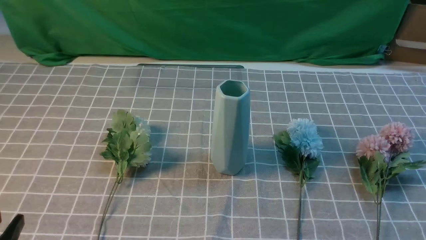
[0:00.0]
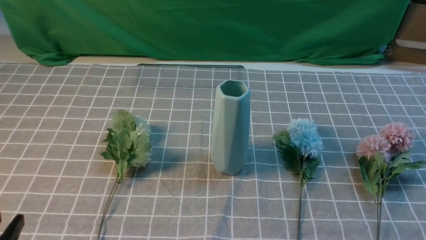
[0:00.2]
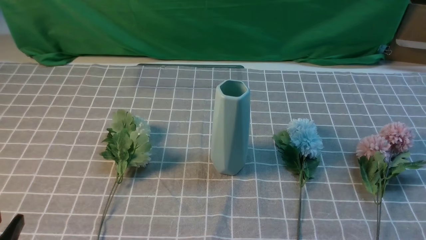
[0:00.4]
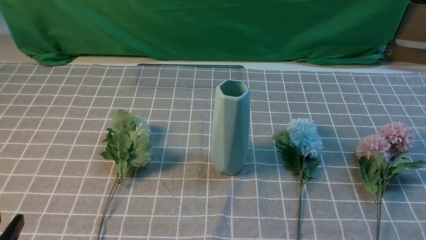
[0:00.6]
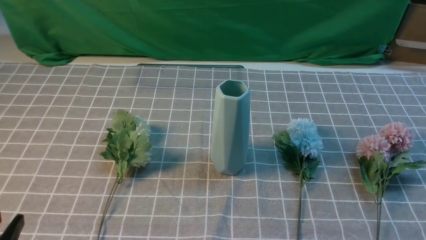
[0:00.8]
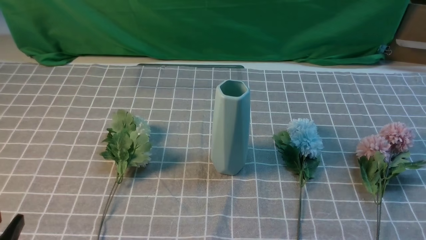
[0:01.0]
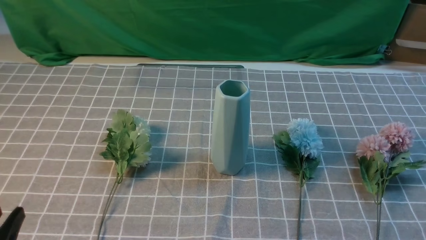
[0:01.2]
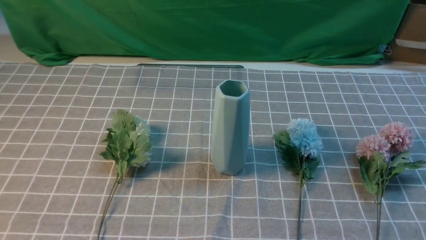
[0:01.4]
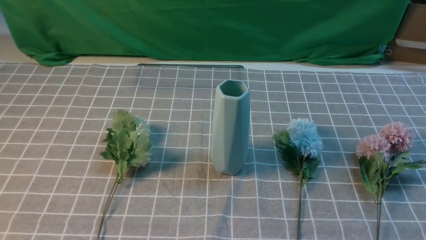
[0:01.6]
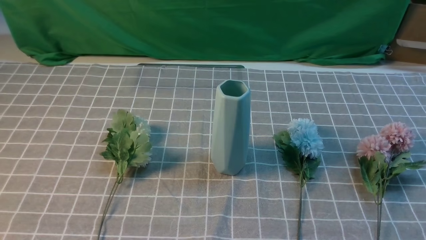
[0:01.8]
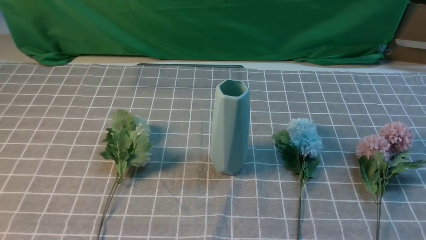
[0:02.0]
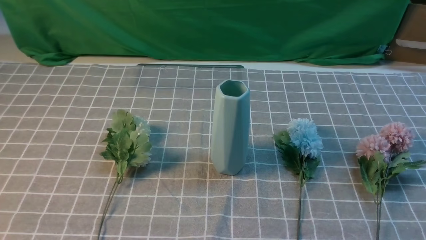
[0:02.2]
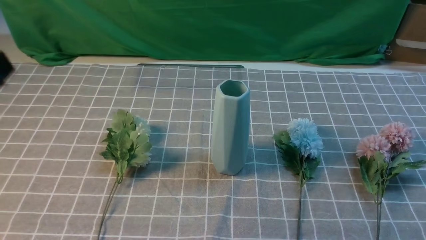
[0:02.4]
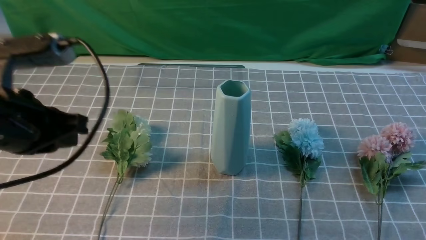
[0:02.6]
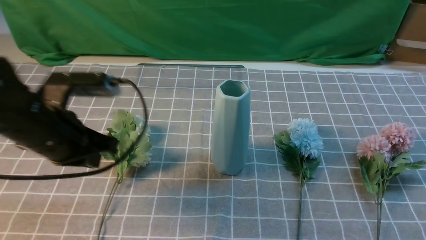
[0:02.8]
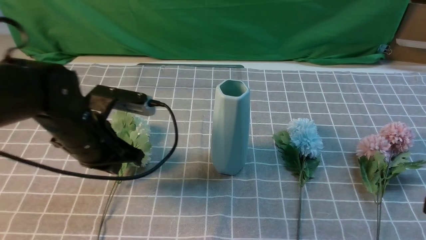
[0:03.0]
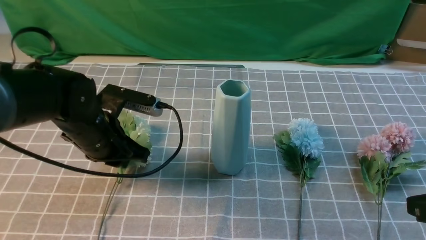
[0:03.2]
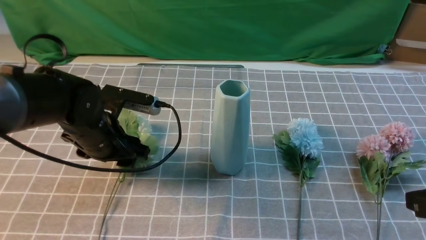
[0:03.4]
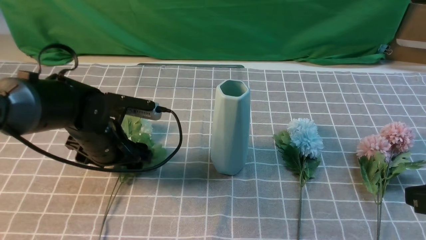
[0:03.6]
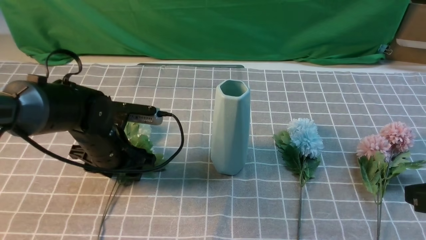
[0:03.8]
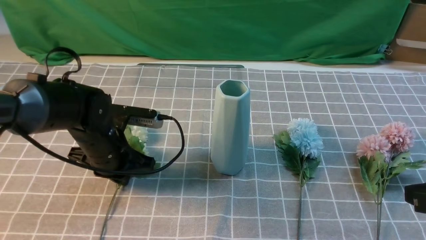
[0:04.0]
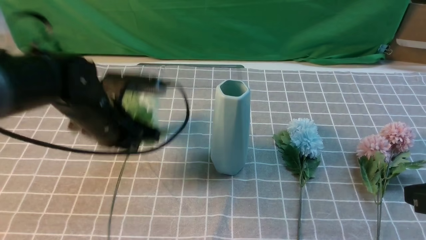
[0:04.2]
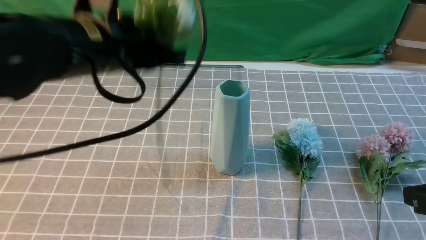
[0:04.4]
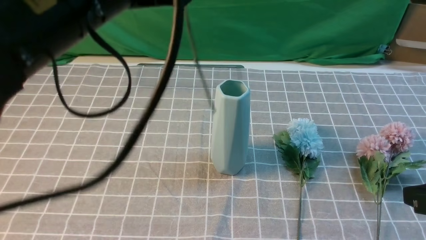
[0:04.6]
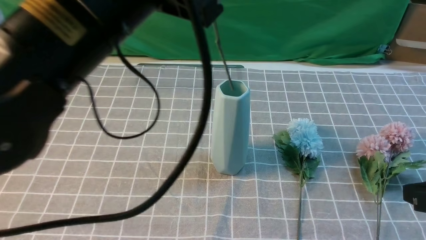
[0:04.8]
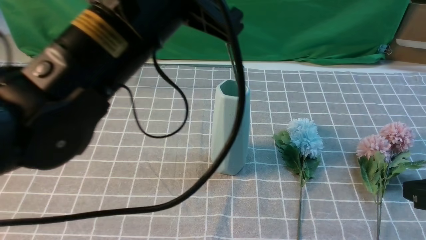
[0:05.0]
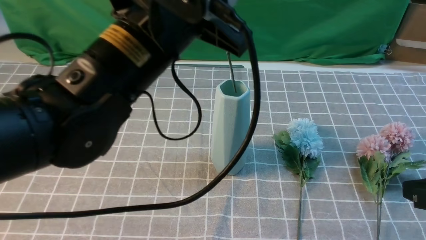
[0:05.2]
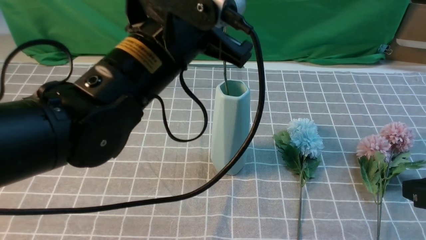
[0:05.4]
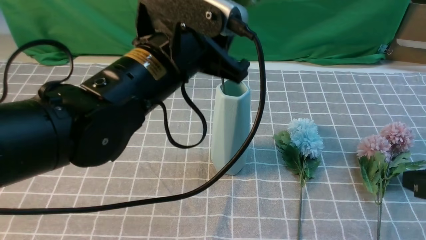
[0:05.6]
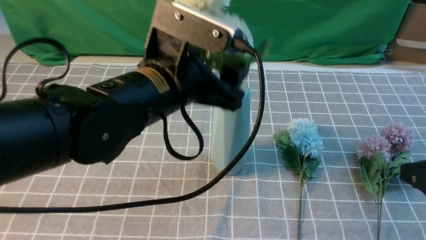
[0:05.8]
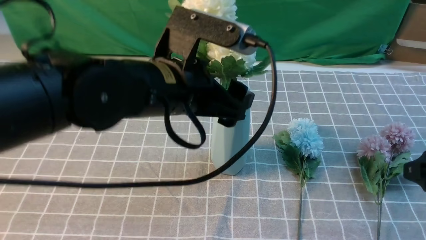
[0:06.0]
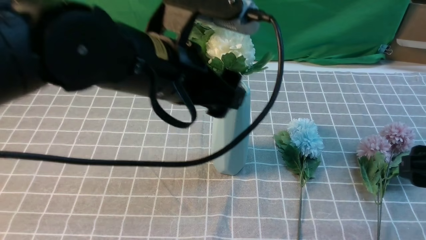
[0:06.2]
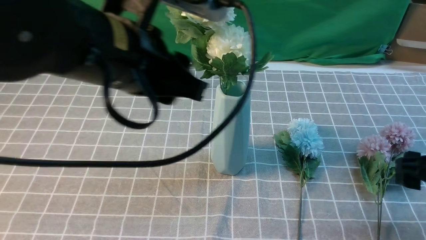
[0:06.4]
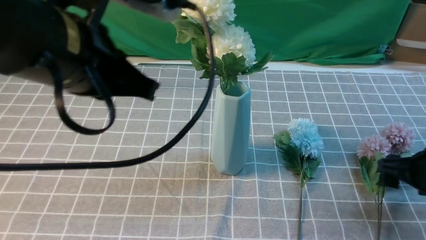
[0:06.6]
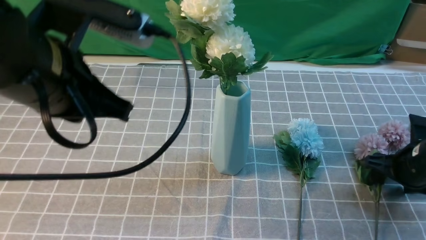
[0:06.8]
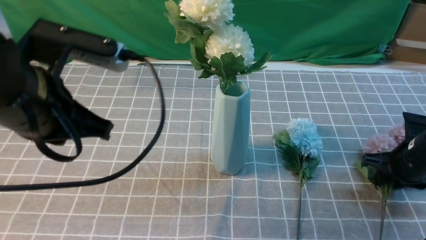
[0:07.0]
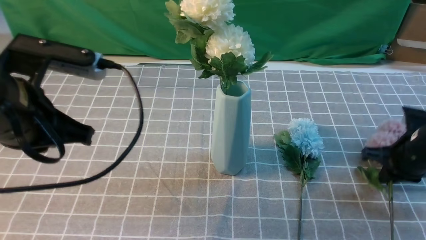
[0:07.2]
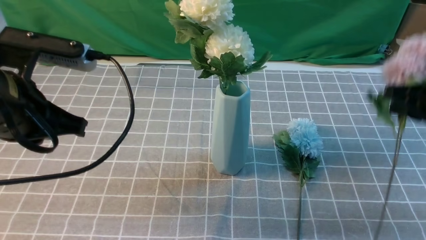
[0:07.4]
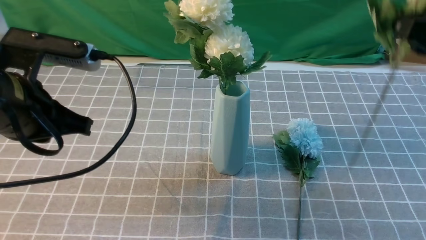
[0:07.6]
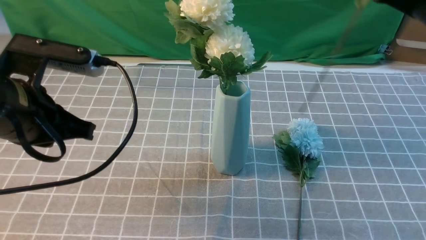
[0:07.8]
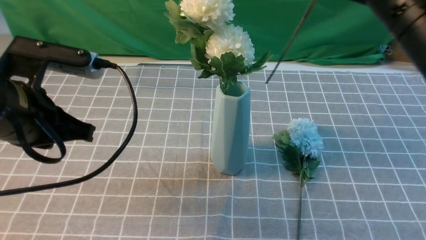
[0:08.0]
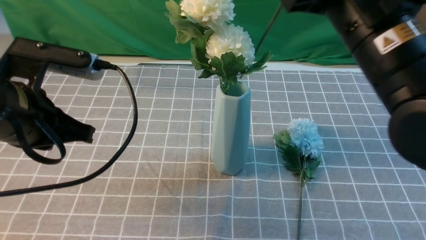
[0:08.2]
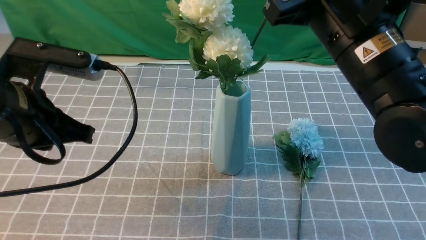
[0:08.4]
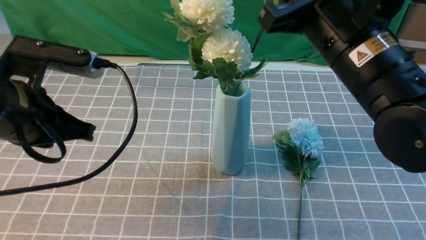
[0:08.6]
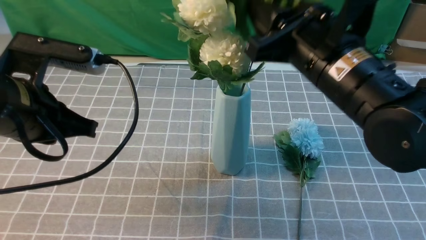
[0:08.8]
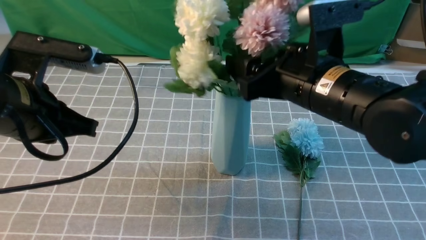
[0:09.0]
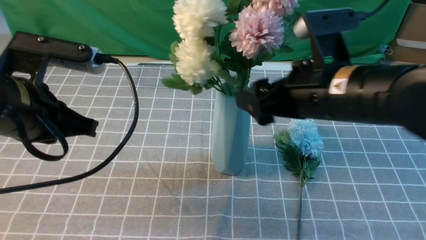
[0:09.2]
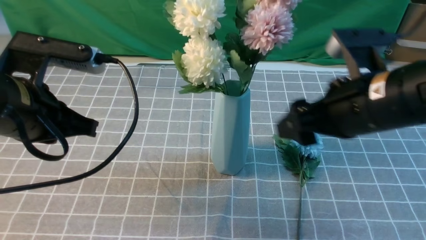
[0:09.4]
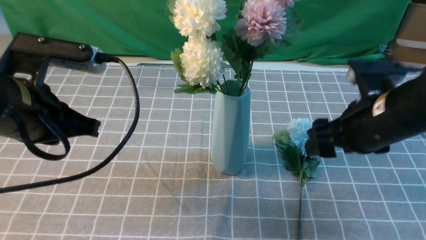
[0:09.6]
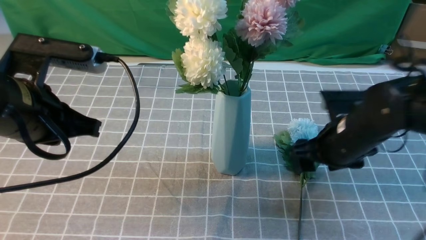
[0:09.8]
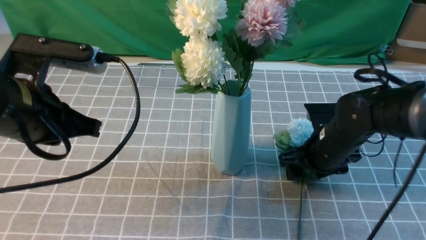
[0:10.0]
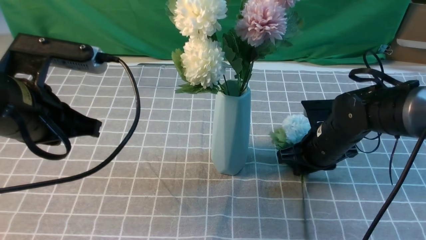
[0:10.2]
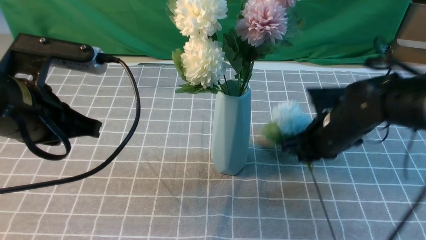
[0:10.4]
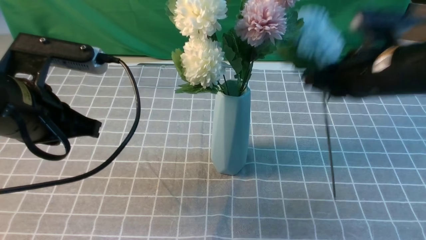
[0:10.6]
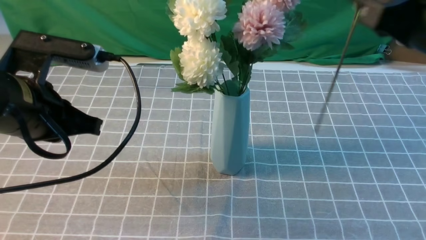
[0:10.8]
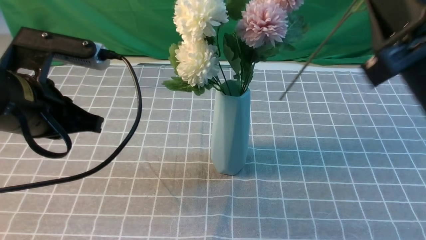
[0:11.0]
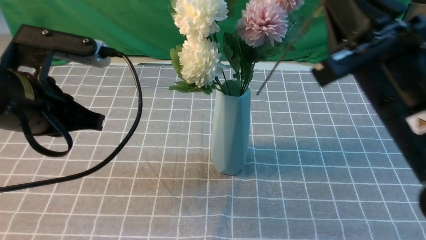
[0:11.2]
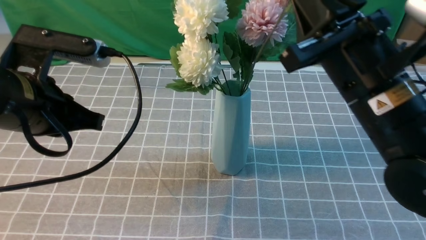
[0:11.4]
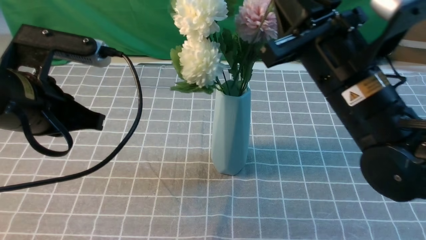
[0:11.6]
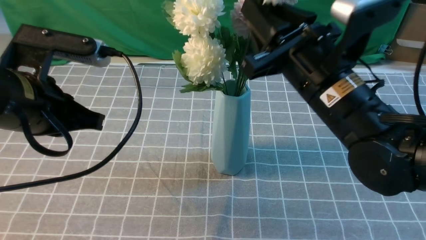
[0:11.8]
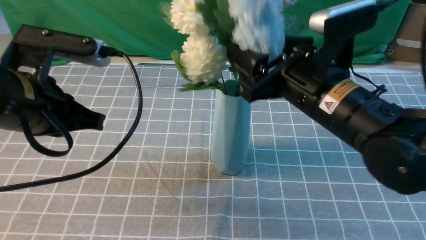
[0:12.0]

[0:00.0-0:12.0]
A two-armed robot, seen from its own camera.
Task of the whole recording: insert the flowers into the vase on the table with the grey tablecloth.
Step, 0.0 to 4.0 s: use the left arm to grab a bunch of fresh flowers.
Step, 4.2 to 6.0 s: use the left arm to insert the flowers into the vase.
Step, 6.2 to 7.2 s: use the right arm to grab a bunch of fresh flowers.
Step, 7.4 to 9.2 s: use the right arm to insert the flowers into the vase.
Step, 9.4 to 10.4 s: use the right arm to grab a bunch of fresh flowers.
1.6 to 3.0 s: The right gripper moves upward and forward, some 10 cm, and closes its fingers; the left gripper moves forward, about 25 cm.
3.0 to 4.4 s: The left gripper is displaced upward and to the right by roughly 15 cm, and opens, then closes once more.
4.4 to 6.0 s: The left gripper travels to the right by approximately 5 cm, moves some 5 cm upward and comes back, and opens up. Meanwhile the right gripper opens its fingers.
6.0 to 7.6 s: The right gripper shifts about 15 cm upward, forward and to the left, and closes its fingers. The left gripper goes approximately 15 cm to the left, and closes its fingers.
7.6 to 9.0 s: The right gripper heads to the left and downward, covering about 15 cm, and opens its fingers.
9.0 to 10.4 s: The right gripper goes roughly 10 cm downward, to the right and forward, and closes up.
10.4 to 12.0 s: The right gripper heads upward, backward and to the left, covering approximately 10 cm, and opens up.

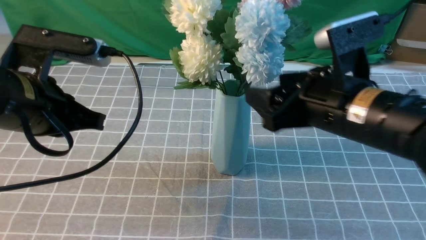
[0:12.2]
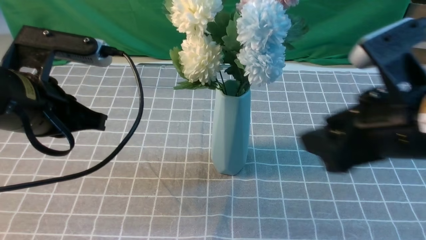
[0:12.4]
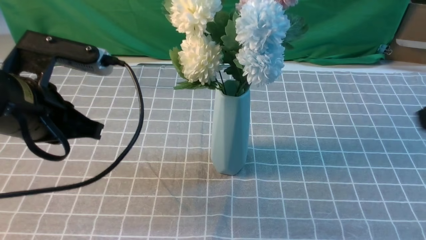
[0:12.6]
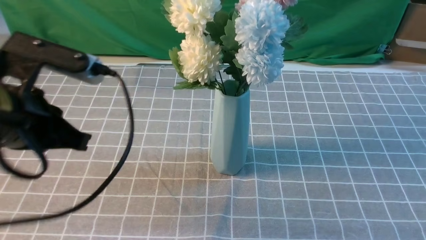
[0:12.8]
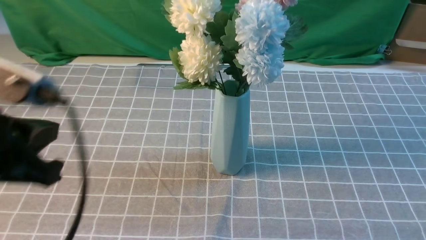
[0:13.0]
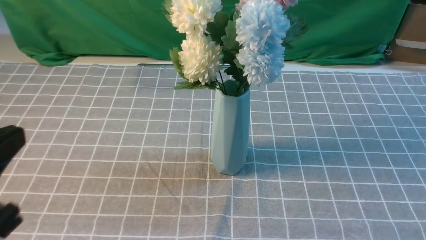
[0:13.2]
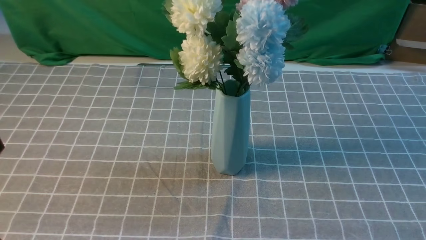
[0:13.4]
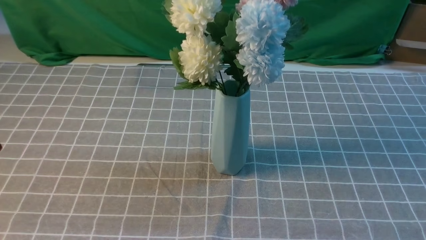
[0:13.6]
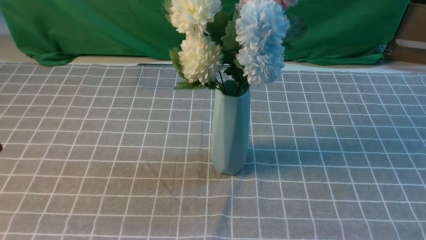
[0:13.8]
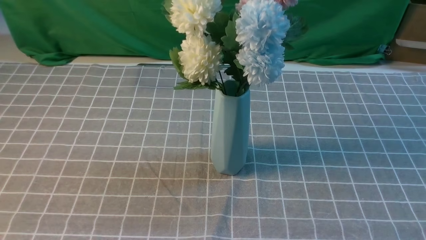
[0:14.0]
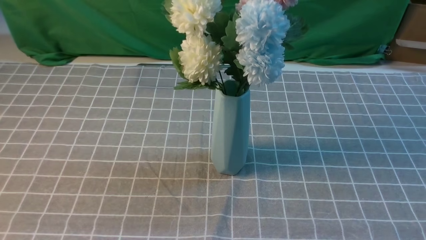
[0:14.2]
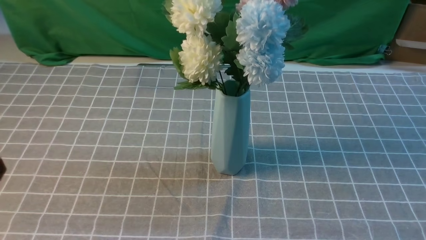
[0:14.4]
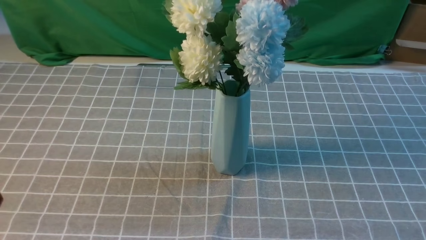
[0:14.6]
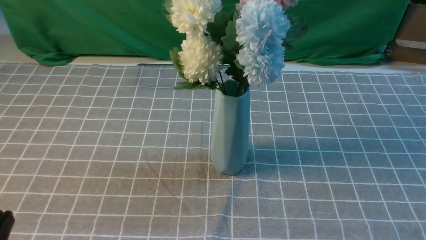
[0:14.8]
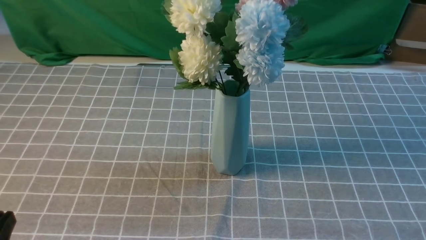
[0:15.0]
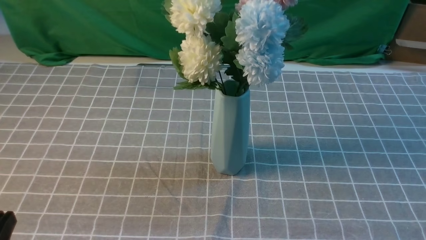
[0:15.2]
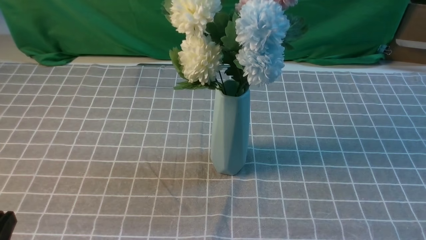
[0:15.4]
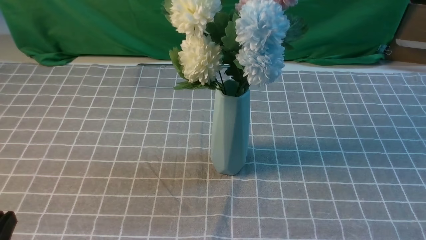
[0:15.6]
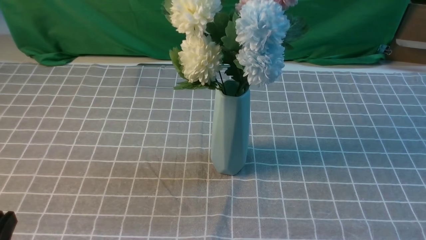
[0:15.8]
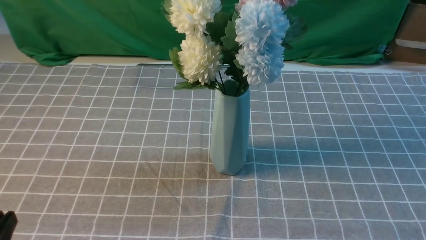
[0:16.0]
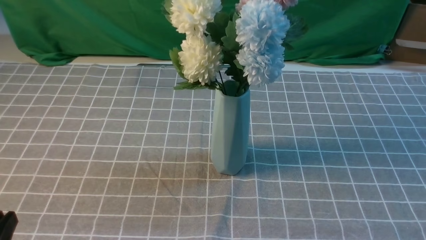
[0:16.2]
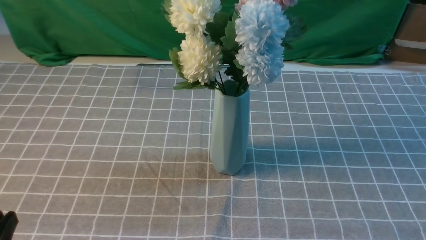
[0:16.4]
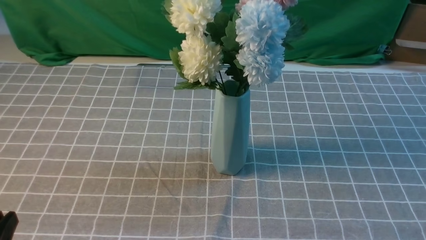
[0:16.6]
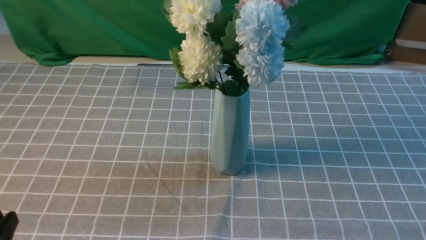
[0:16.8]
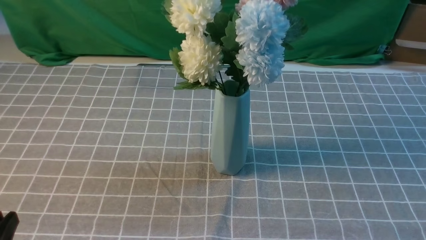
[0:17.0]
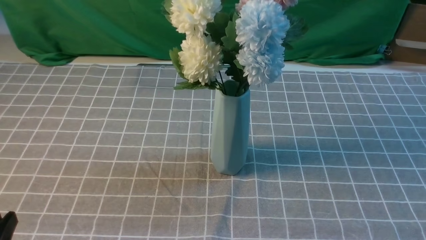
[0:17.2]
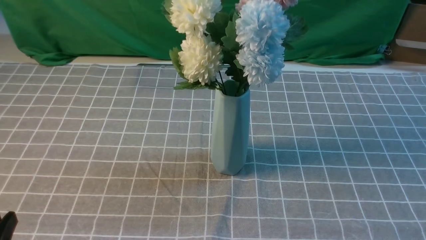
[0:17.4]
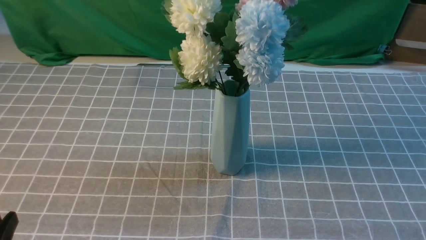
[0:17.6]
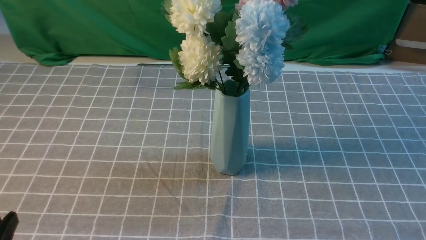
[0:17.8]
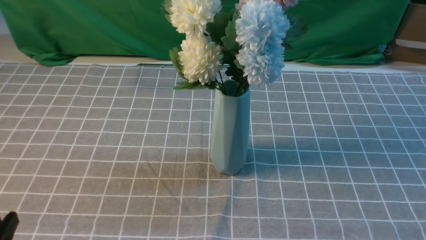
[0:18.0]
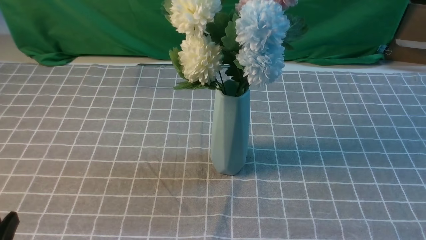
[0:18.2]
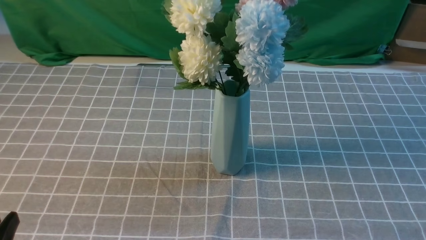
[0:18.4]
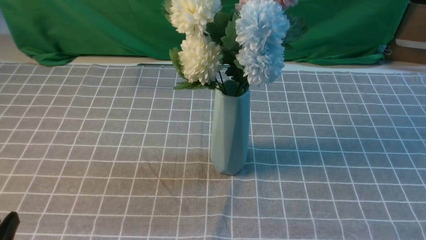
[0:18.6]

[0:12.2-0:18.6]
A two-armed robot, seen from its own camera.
Task of the whole recording: insert the flowers into the vase on the table with the grey tablecloth.
12.2 to 13.8 s: The left gripper heads backward, covering about 20 cm. The right gripper travels backward and to the right by roughly 25 cm, and closes.
17.0 to 18.6 s: Both grippers stay put.
